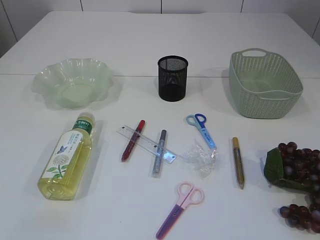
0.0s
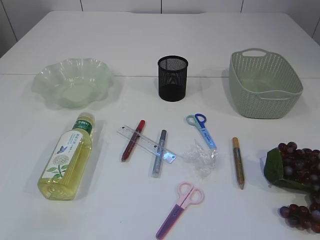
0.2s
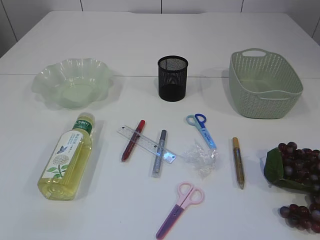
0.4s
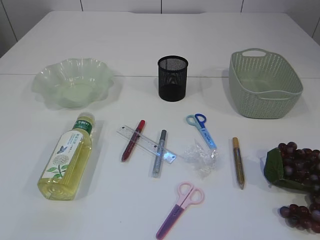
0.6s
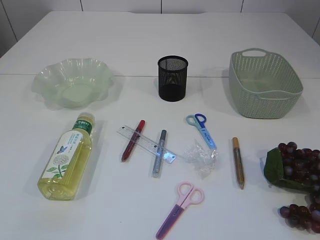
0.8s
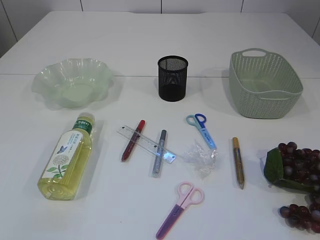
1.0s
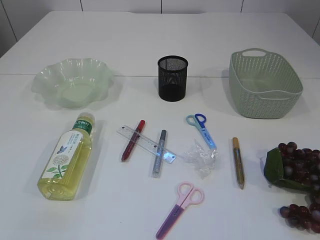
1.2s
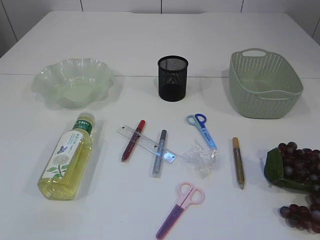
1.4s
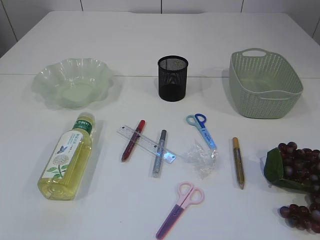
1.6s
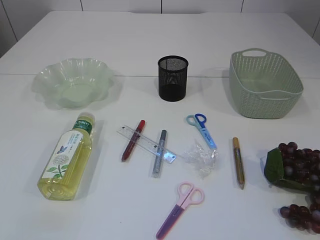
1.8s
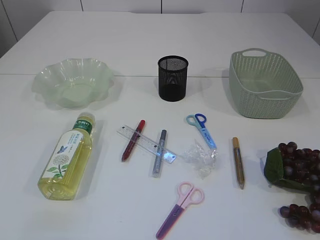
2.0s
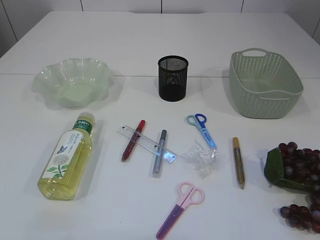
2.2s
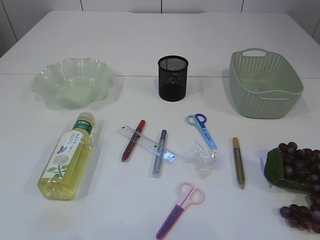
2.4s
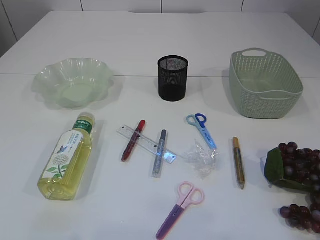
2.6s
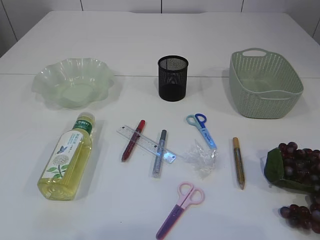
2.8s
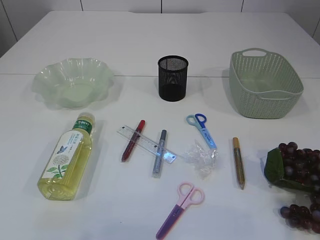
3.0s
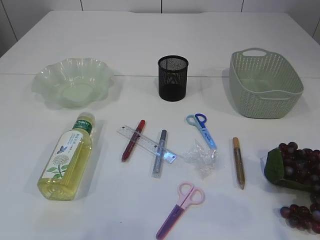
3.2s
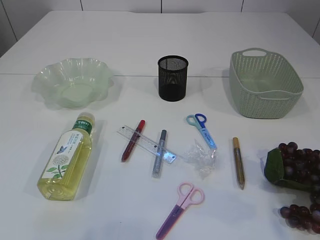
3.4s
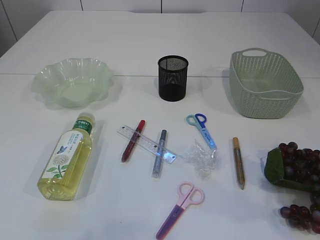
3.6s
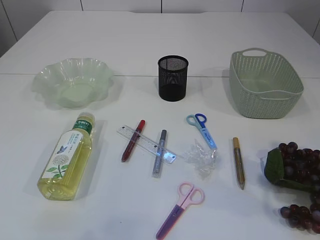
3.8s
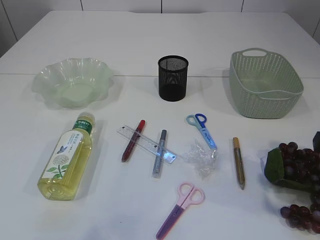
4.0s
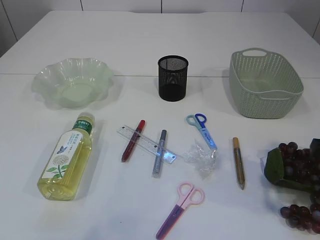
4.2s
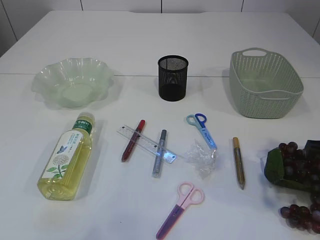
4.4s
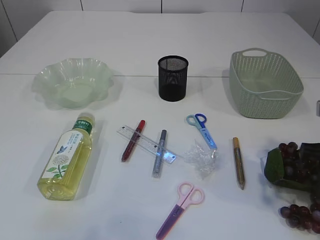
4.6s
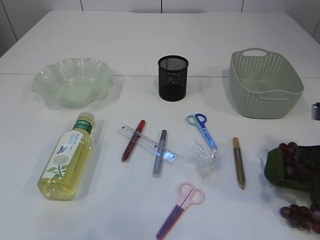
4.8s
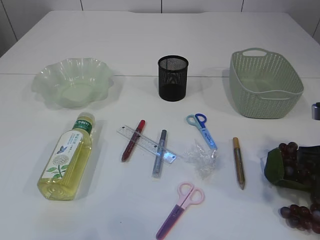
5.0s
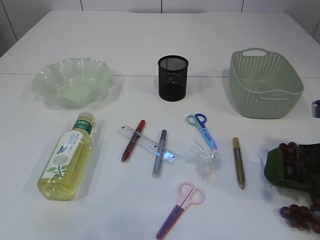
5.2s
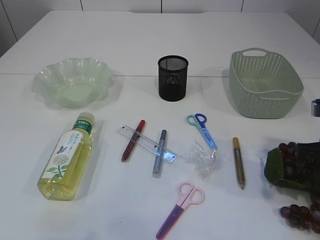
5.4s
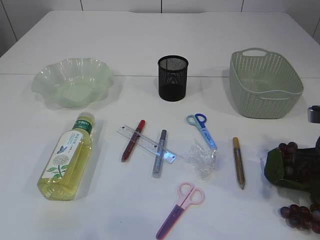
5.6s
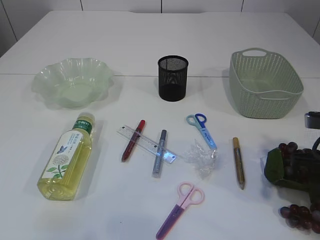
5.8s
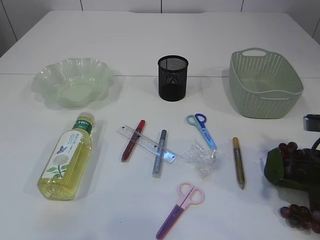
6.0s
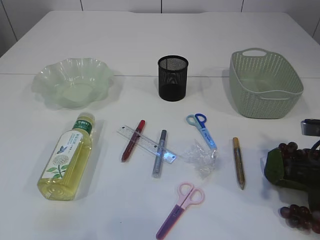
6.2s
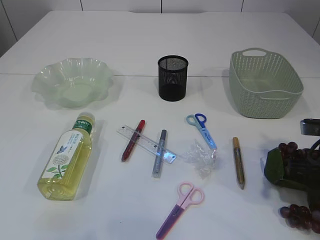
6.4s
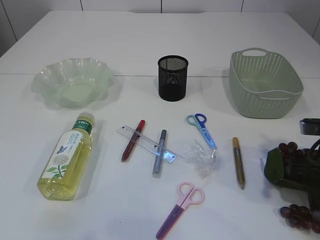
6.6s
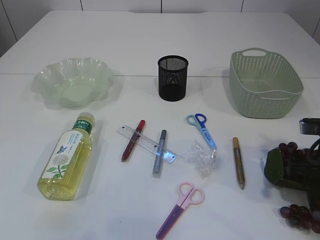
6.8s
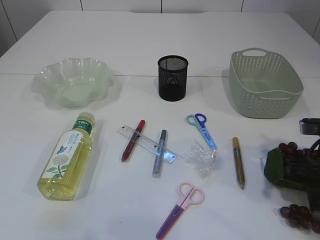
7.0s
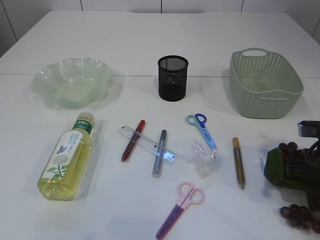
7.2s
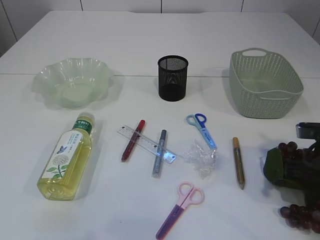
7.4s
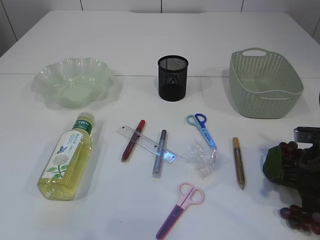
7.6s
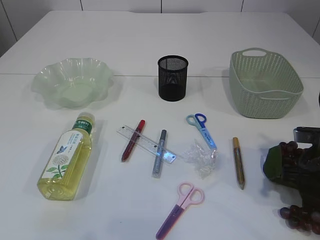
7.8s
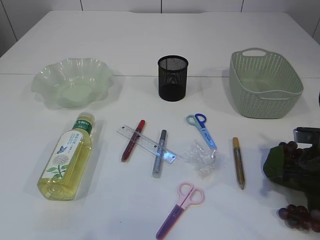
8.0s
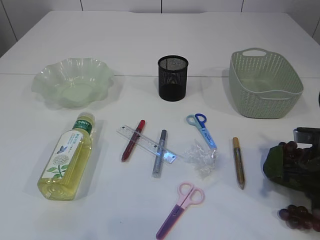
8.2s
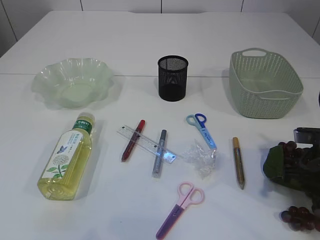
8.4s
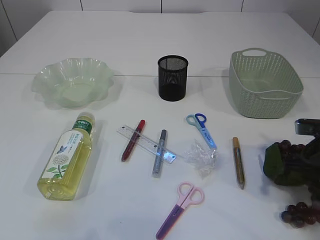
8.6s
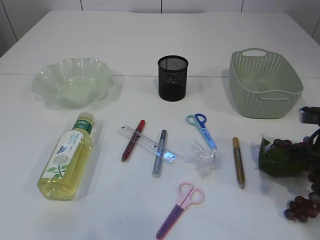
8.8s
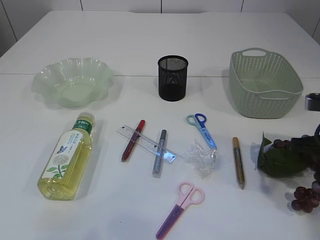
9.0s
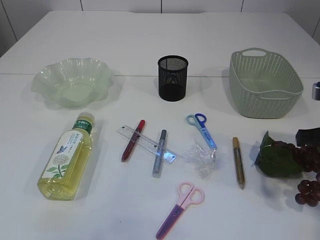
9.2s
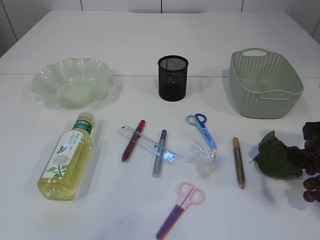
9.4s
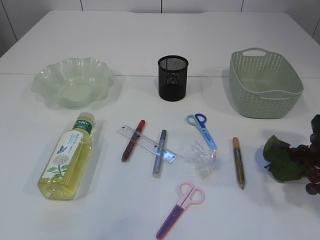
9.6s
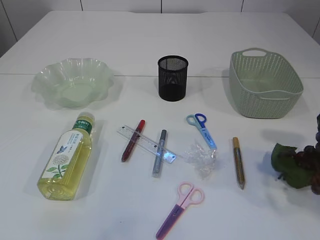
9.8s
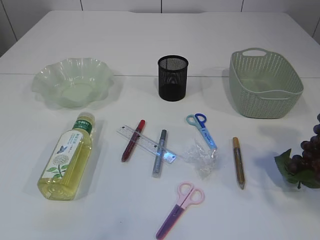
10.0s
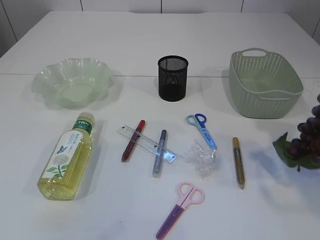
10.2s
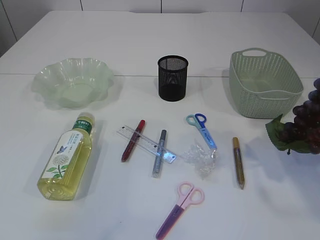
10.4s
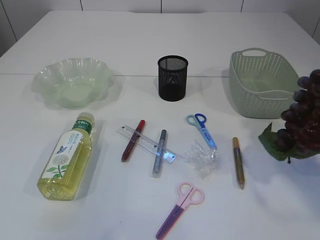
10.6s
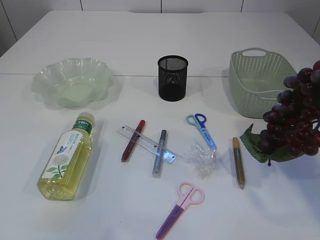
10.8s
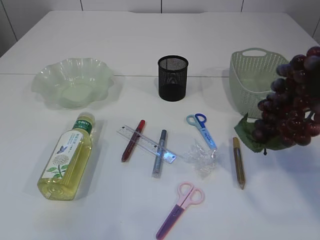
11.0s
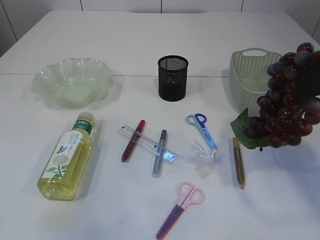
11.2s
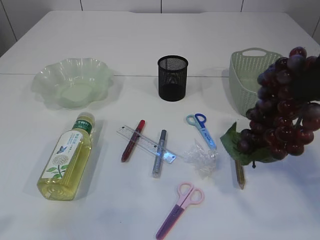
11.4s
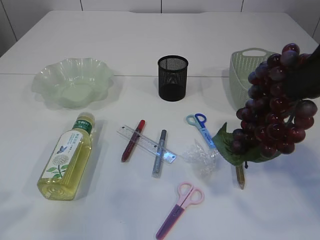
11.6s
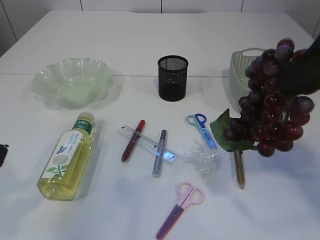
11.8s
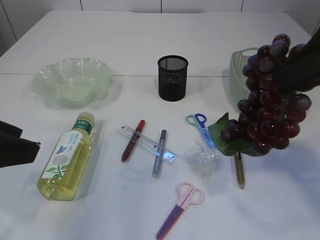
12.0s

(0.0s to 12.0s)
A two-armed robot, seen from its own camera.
Step, 0.0s - 10.6s: Pick up the grapes.
1.6s - 3.0s: The right gripper goes some 15 cm forward.
3.0s - 4.4s: The right gripper travels forward and downward by about 15 cm.
4.4s - 6.0s: The right gripper travels downward by about 5 cm.
6.0s - 7.6s: The grippers stay close to where they were, moving slightly.
7.6s - 9.0s: The right gripper shifts approximately 5 cm upward, and closes up.
9.0s - 10.4s: The right gripper goes roughly 15 cm upward.
10.4s - 12.0s: The right gripper travels to the left by about 5 cm. Meanwhile the left gripper travels forward by roughly 15 cm.

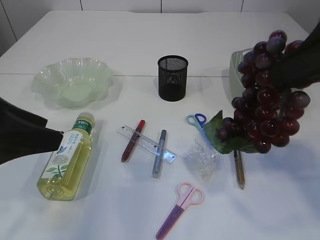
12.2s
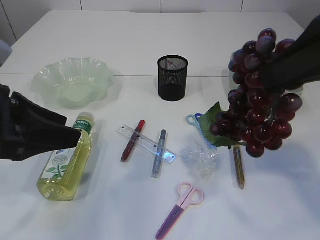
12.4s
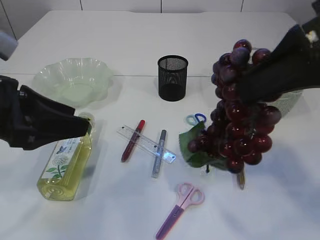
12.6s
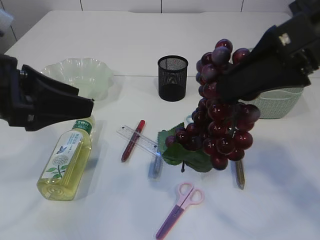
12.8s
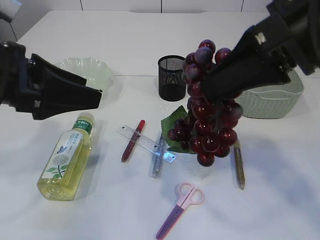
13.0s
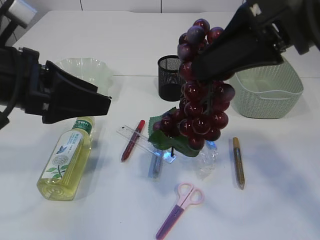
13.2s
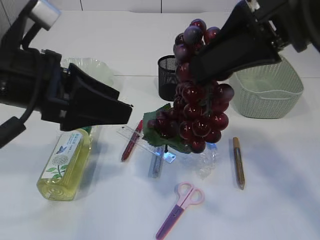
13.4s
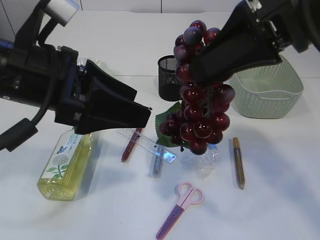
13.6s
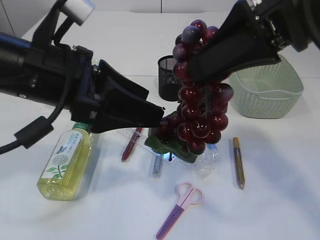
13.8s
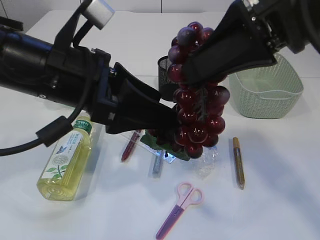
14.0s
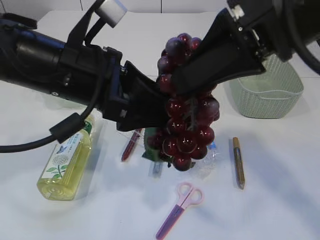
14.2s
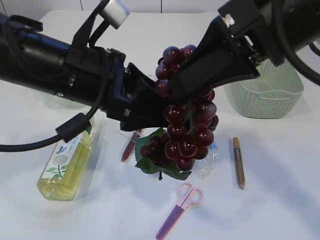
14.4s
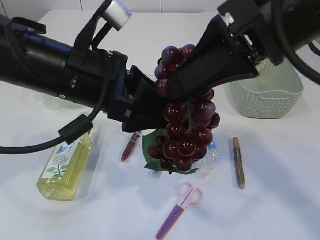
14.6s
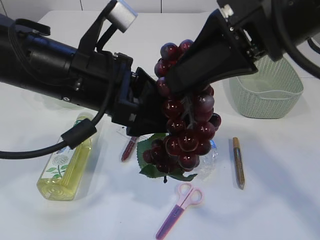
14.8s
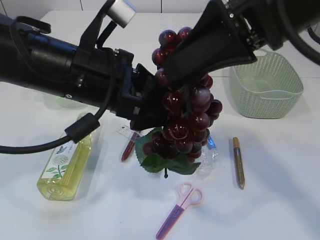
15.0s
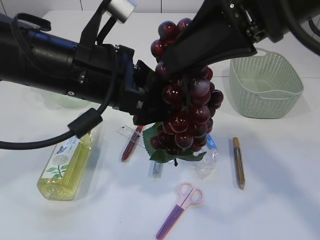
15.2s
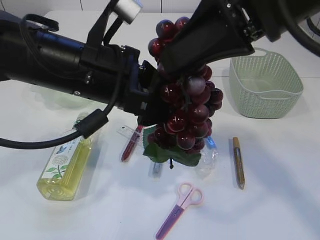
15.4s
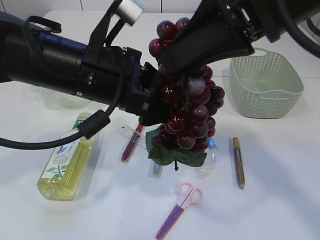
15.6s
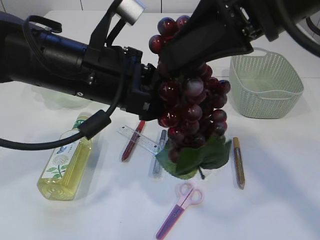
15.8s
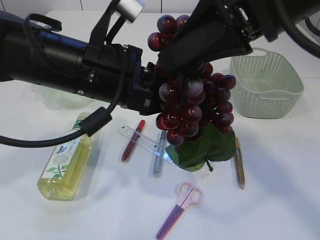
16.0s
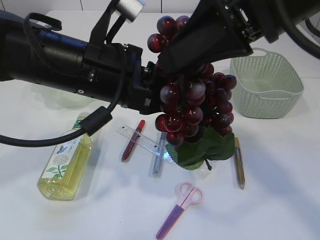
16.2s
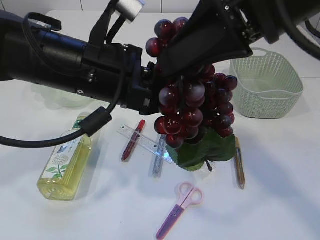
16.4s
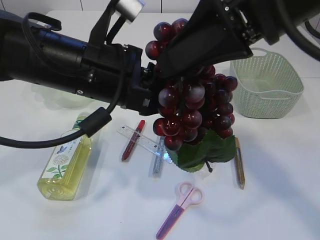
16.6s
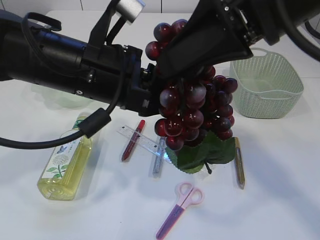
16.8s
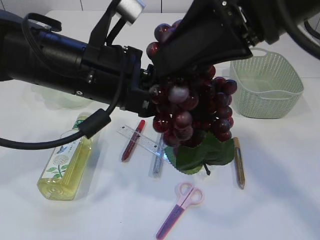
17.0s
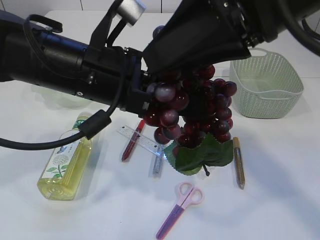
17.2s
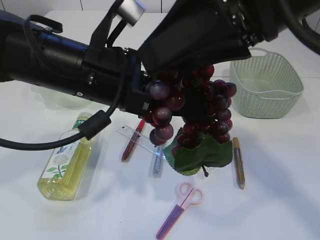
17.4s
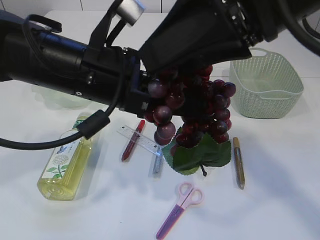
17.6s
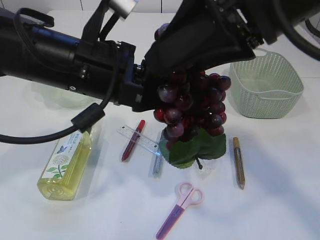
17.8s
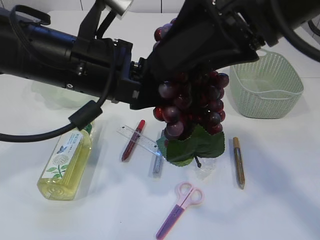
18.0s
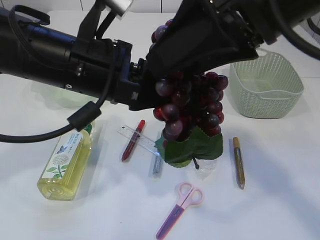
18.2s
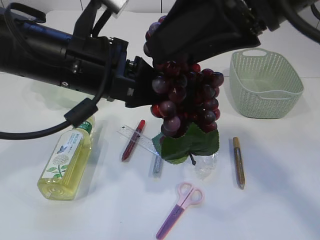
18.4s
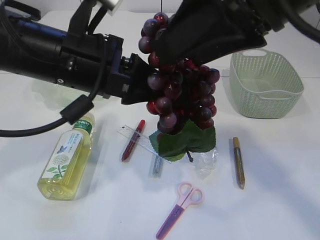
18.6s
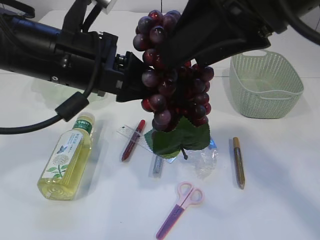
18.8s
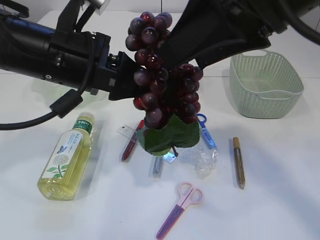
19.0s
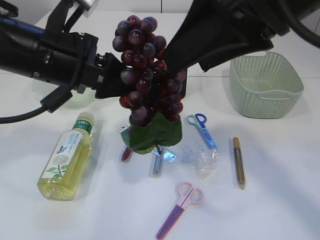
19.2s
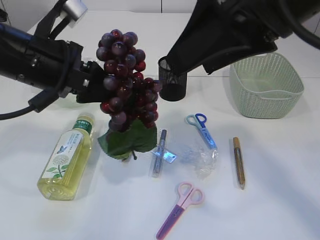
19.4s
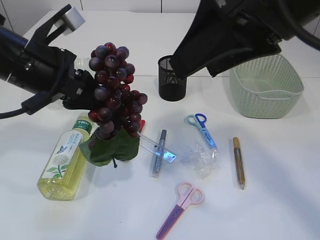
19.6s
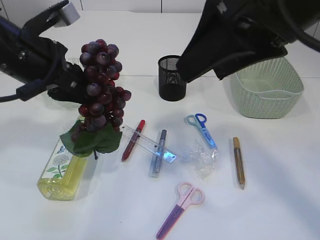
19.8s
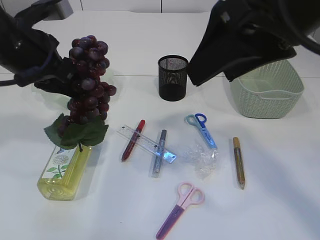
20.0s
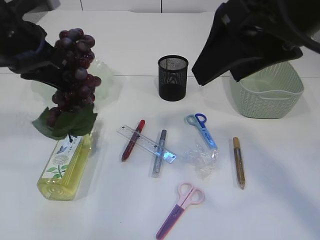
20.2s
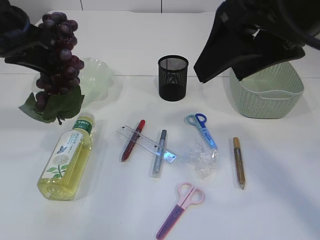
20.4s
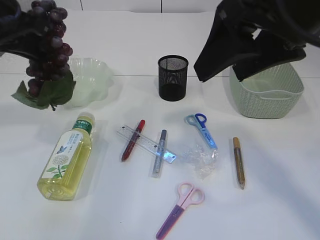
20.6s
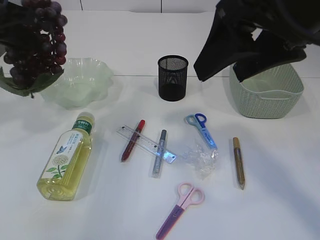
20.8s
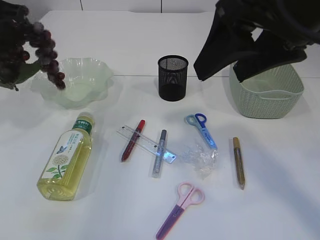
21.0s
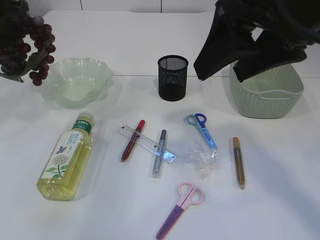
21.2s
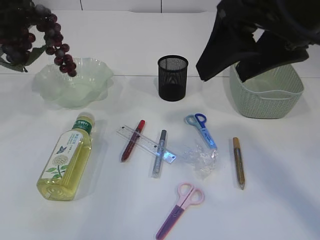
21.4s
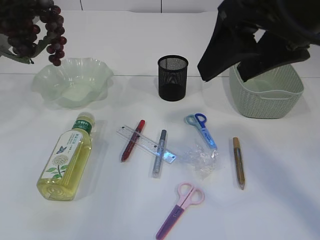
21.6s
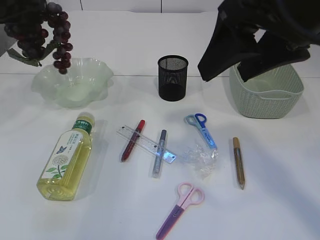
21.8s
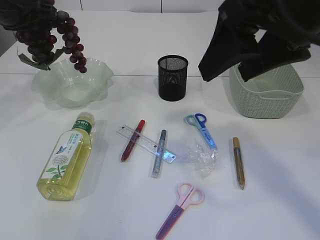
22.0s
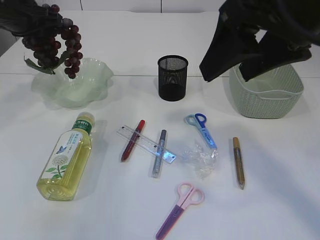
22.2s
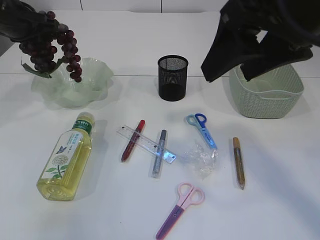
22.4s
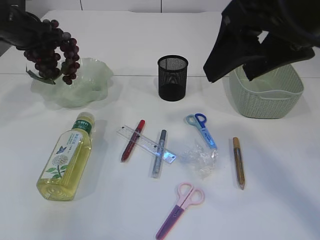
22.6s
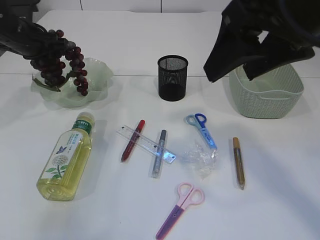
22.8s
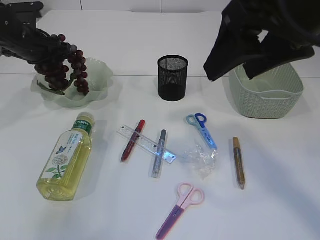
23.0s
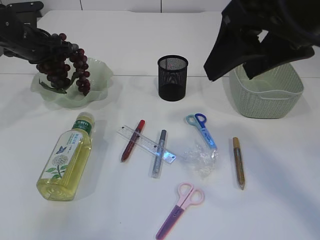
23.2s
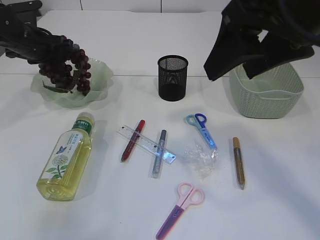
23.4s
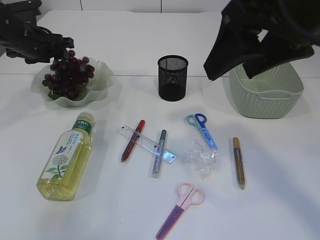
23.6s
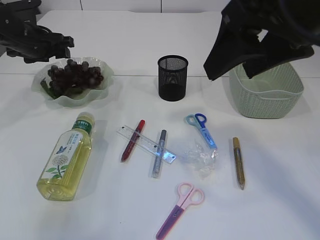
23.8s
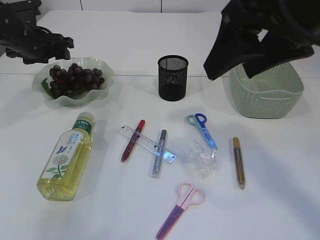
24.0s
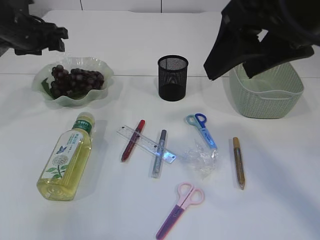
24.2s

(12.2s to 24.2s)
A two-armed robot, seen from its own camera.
Step, 12.2s - 19.2s: Hand over the grapes.
Step, 19.4s - 24.0s: Place the grapes in the plate.
12.2s - 13.8s: The left gripper moves to the right and forward, some 10 cm. The right gripper is displaced to the left by some 5 cm.
15.2s - 16.6s: The left gripper closes.
16.6s - 18.2s: The right gripper opens.
18.2s - 19.8s: The left gripper heads to the left, covering roughly 10 cm.
19.8s - 21.2s: The left gripper shifts approximately 15 cm to the left, forward and upward.
21.2s - 22.6s: The left gripper moves forward and downward, some 15 cm.
22.6s - 24.2s: The left gripper opens up.
